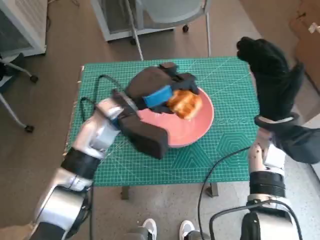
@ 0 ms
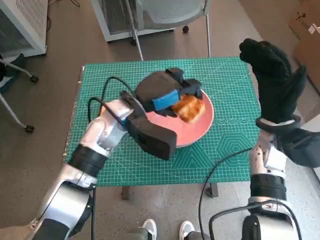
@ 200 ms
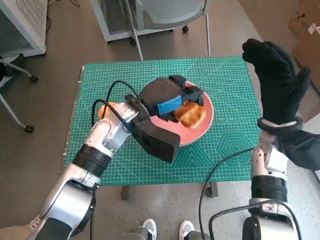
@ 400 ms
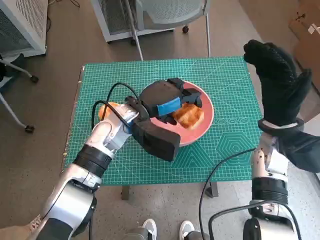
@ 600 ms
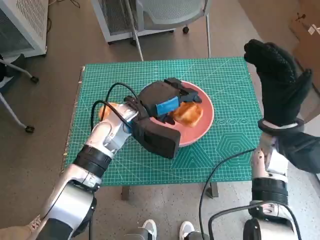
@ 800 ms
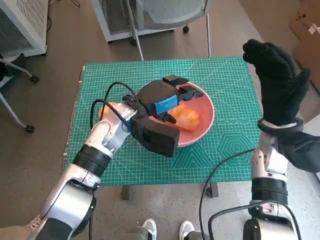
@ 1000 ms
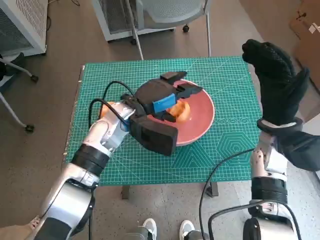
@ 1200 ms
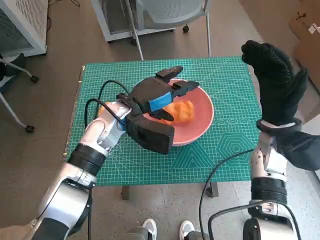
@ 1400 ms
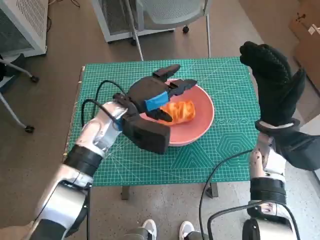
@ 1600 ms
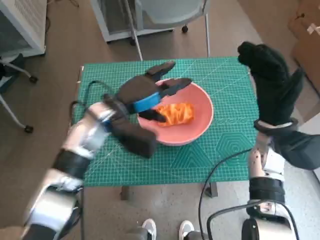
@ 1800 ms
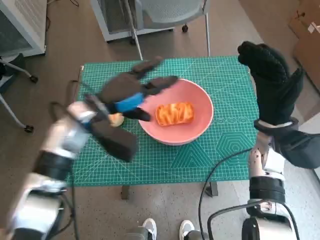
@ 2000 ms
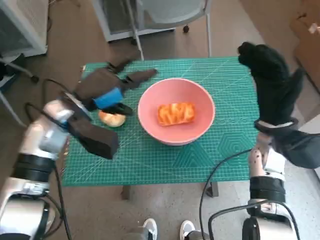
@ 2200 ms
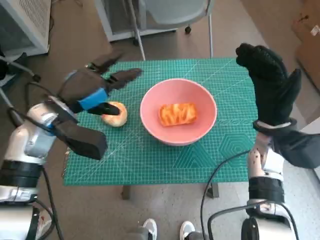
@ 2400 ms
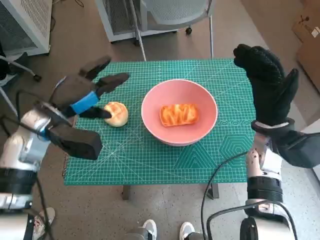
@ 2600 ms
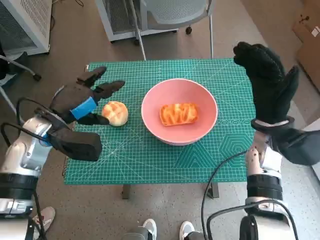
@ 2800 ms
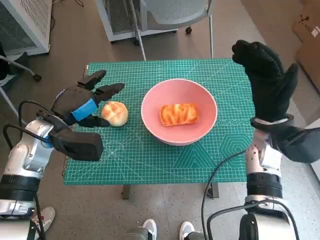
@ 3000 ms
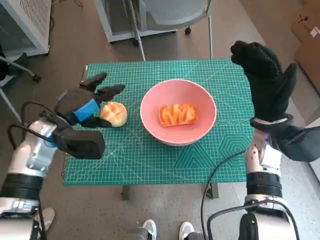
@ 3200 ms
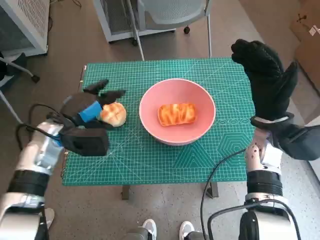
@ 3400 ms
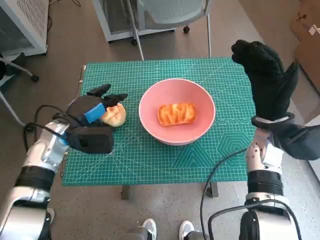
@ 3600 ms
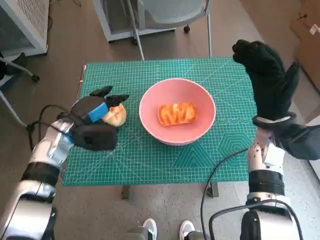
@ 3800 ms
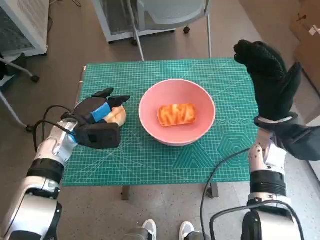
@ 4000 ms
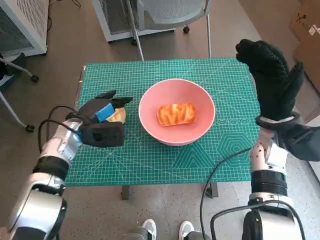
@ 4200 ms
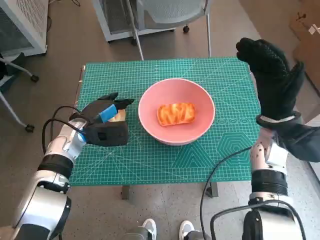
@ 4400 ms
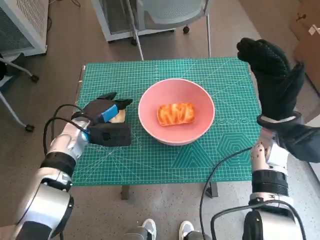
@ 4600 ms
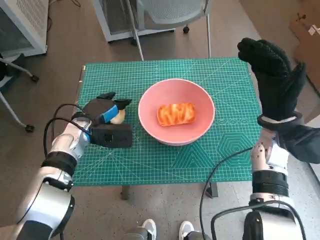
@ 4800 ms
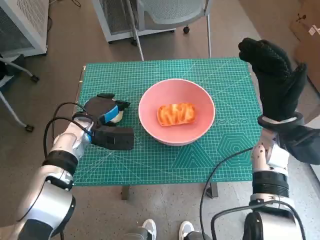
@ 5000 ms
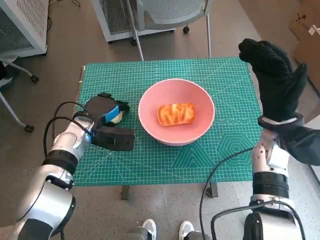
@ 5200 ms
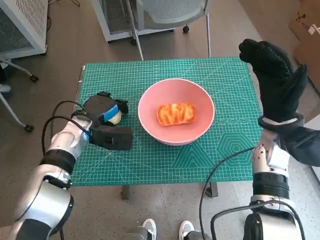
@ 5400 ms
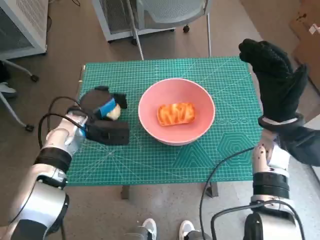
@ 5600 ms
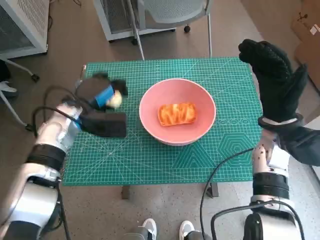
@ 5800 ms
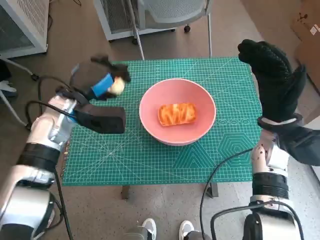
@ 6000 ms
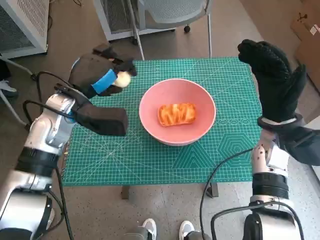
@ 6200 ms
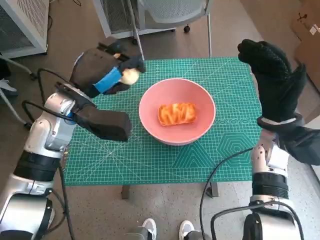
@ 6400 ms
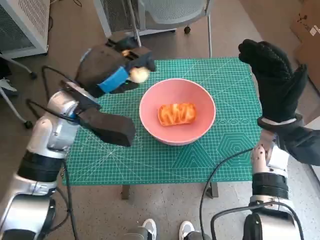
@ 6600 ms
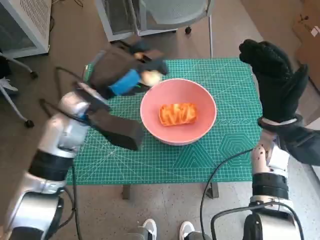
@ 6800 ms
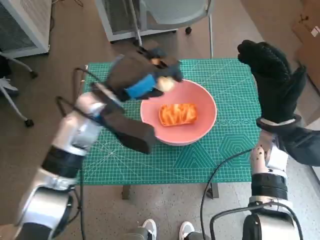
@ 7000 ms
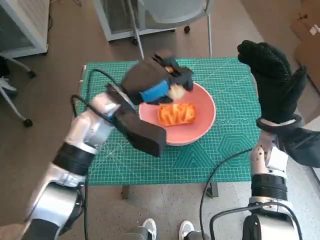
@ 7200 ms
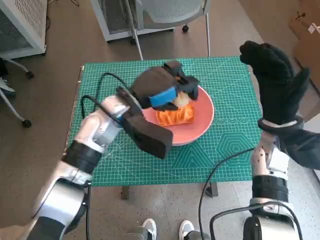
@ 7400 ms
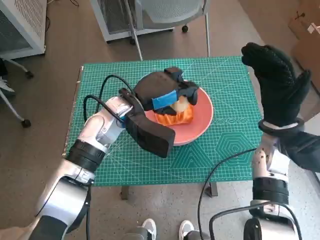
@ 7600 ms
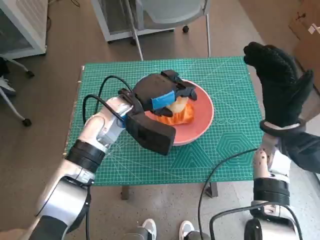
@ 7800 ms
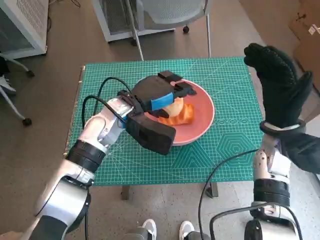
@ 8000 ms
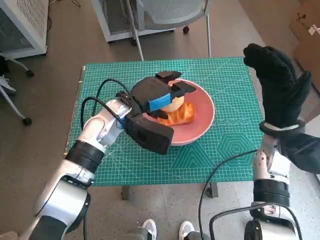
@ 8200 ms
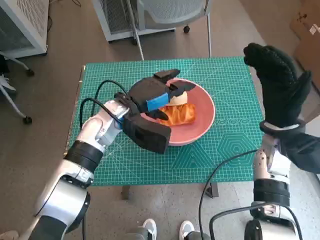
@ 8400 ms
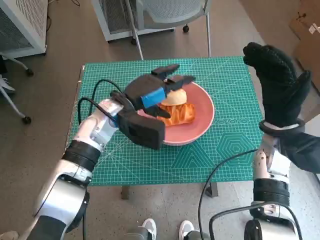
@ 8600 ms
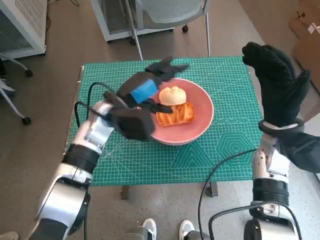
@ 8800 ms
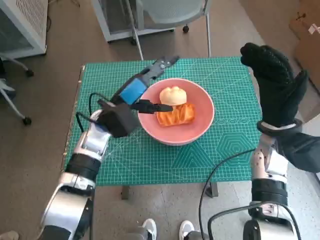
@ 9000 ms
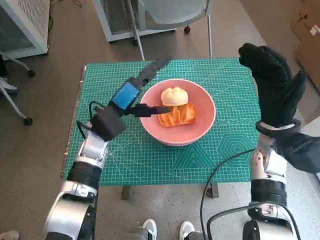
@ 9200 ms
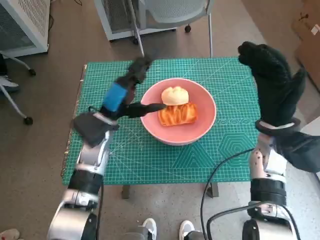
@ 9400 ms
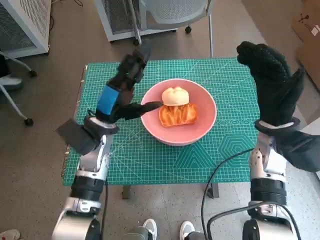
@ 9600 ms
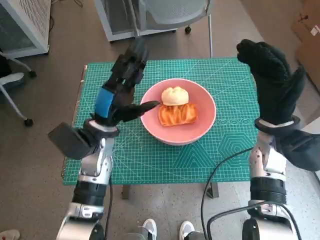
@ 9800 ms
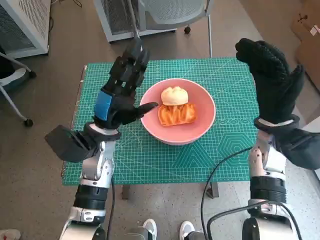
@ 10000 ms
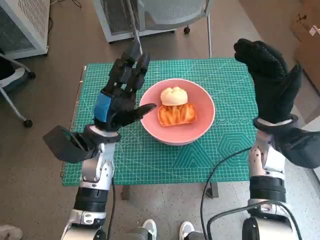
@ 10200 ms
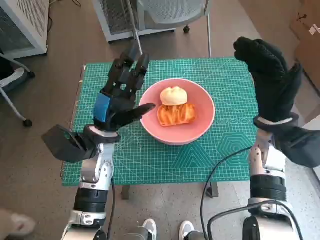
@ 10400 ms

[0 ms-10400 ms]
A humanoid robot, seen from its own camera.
Step, 1600 ms to 5400 ms: Grasp the round bread with left hand.
Step, 5600 ms to 8400 ms: Place the round bread in pink bowl with left hand.
0 ms to 1400 ms: The hands move only a little.
1400 ms to 3000 ms: The left hand moves to the left, roughly 15 cm.
3000 ms to 4400 ms: The left hand moves downward, roughly 5 cm.
4400 ms to 6000 ms: The left hand heads upward, covering about 5 cm.
6000 ms to 7400 ms: The left hand goes roughly 10 cm to the right.
7400 ms to 9000 ms: The left hand ends up approximately 5 cm from where it was.
9000 ms to 10400 ms: The left hand goes approximately 5 cm backward.

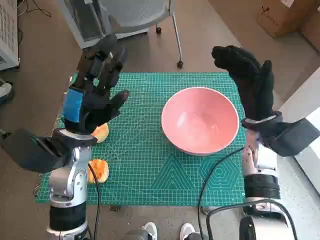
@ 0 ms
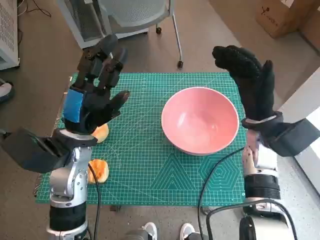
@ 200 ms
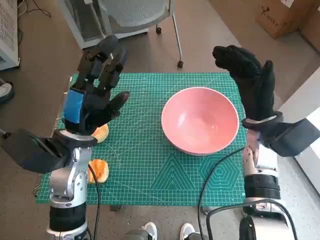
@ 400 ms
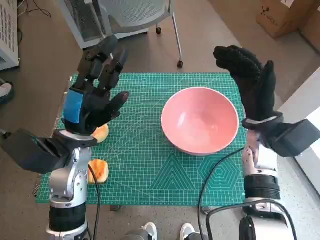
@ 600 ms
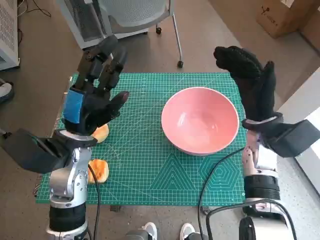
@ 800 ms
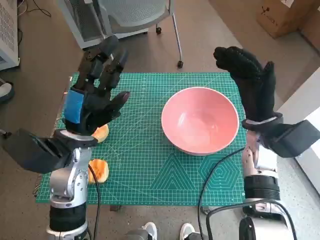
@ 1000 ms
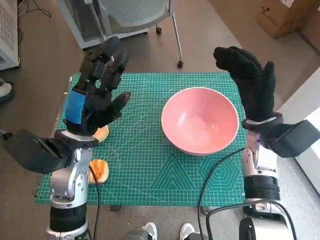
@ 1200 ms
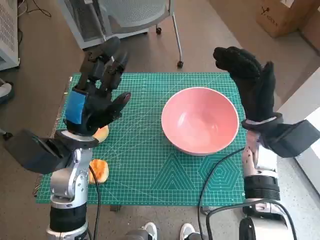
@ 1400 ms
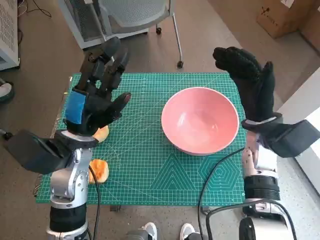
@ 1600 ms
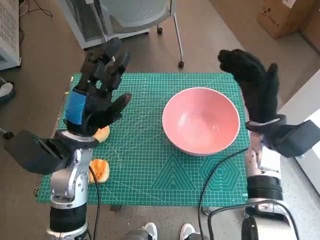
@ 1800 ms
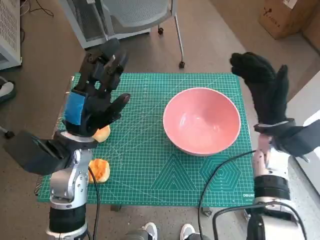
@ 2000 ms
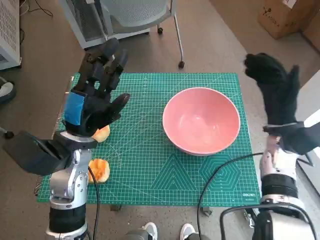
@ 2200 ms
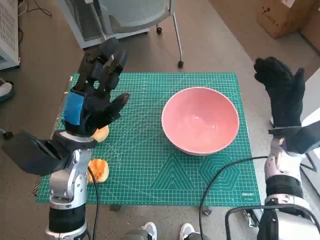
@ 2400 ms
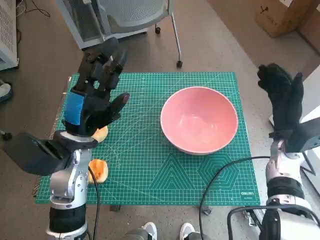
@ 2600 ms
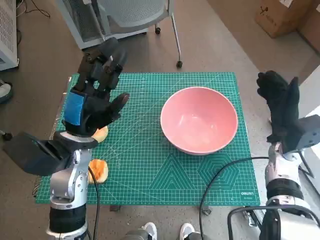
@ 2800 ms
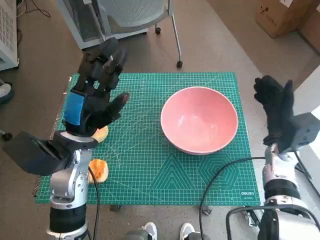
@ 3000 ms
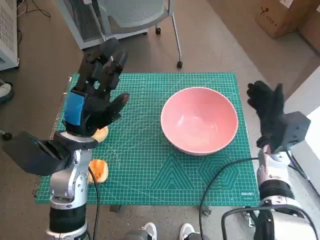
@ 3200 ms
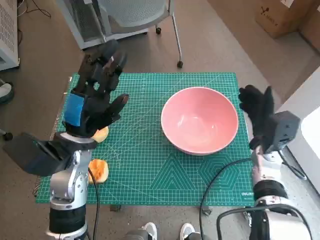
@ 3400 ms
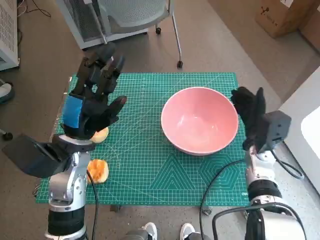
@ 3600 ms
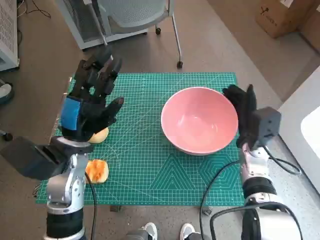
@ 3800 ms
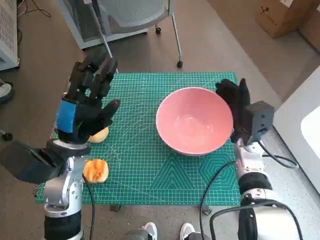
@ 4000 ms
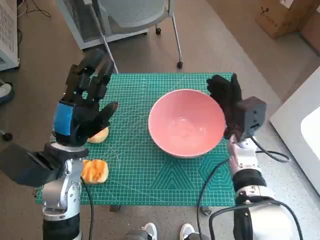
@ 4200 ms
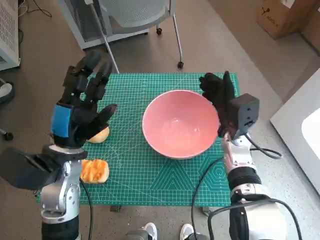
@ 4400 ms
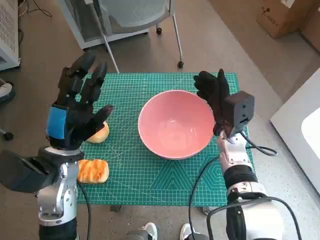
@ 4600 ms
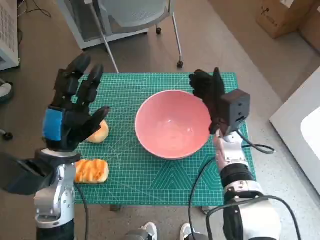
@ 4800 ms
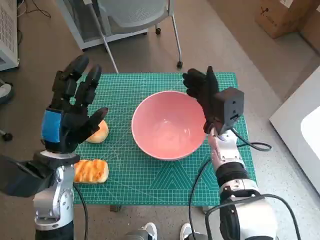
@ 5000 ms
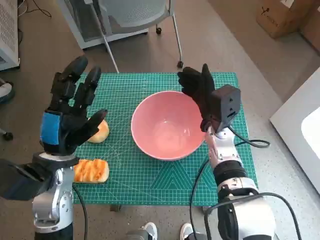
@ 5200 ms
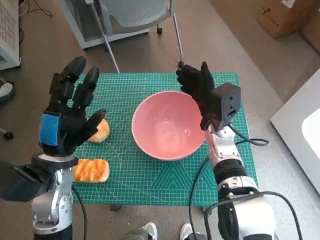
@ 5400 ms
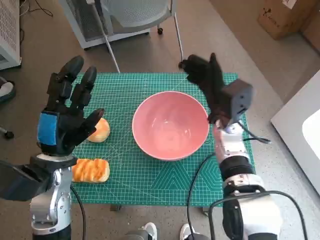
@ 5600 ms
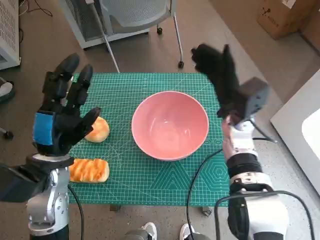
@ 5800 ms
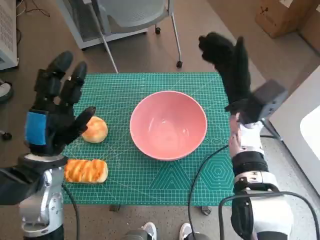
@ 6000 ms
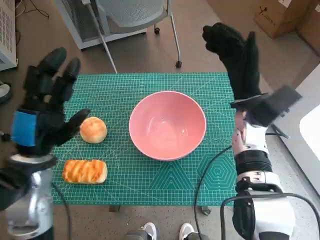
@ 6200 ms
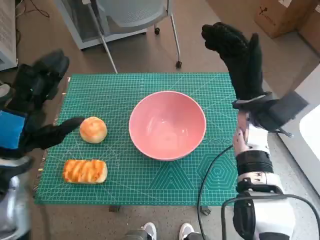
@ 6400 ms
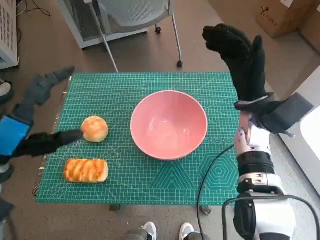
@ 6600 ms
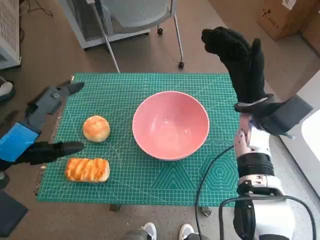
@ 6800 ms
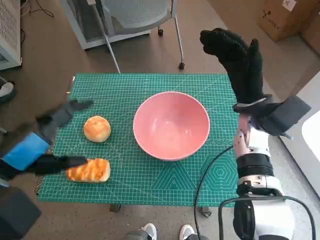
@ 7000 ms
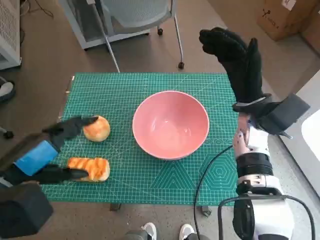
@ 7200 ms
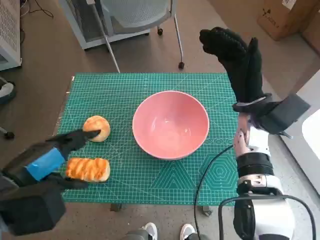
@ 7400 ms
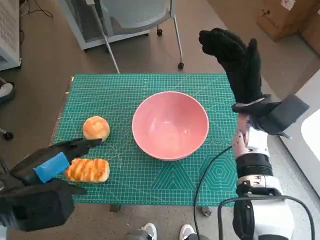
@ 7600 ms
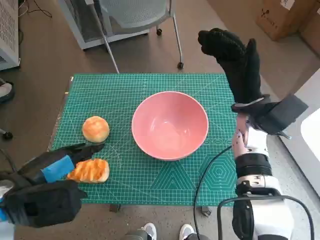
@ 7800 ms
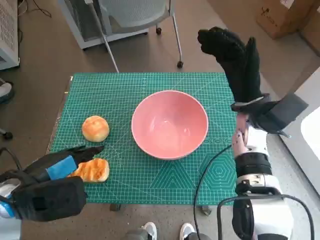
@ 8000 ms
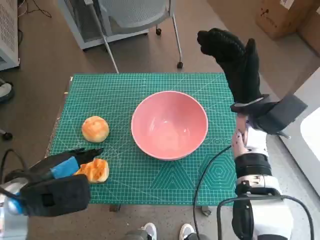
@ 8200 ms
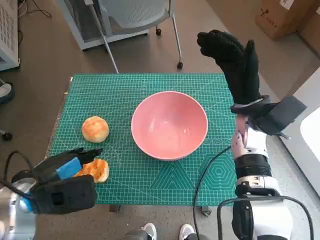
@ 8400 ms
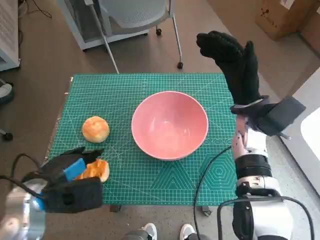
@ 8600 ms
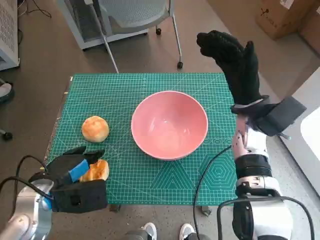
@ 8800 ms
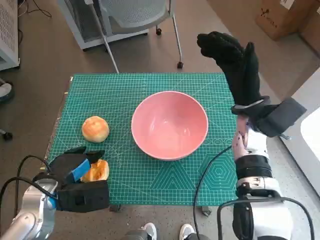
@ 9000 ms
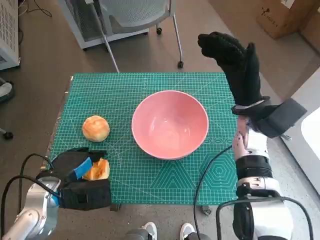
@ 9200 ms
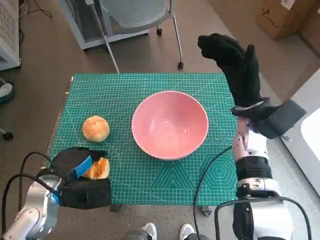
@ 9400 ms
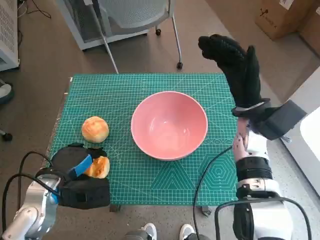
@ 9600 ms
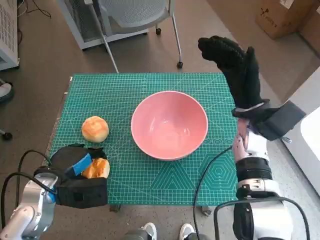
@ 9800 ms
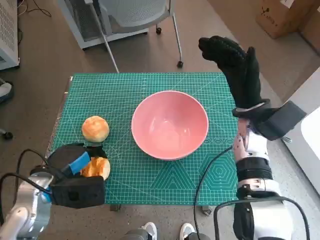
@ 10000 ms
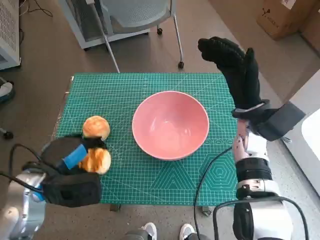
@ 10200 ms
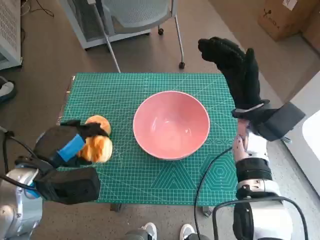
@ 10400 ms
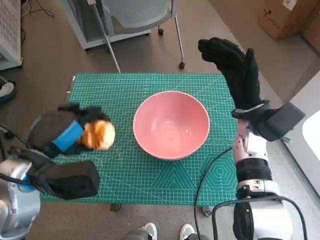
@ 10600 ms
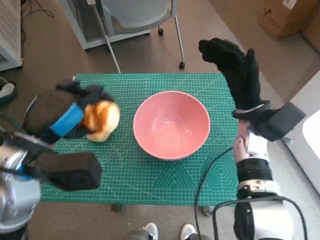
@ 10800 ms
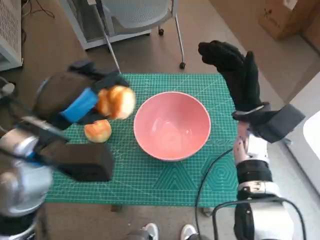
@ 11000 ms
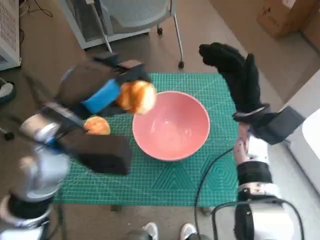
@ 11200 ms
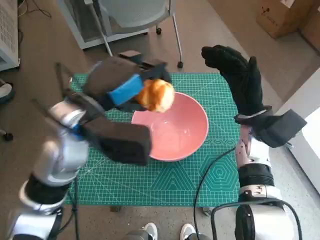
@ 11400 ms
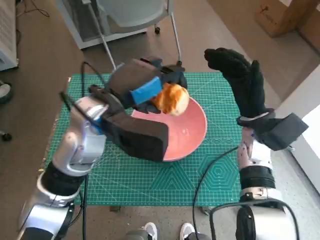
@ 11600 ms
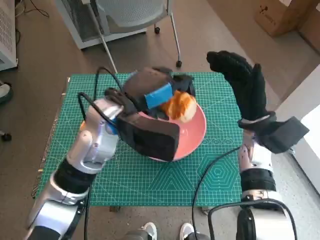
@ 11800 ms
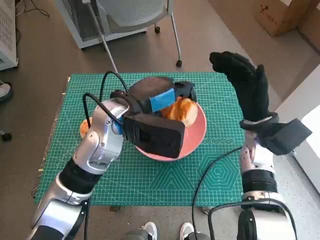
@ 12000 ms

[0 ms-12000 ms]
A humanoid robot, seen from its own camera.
Step, 0 ms to 5000 ms: Move the pink bowl to the center of table with right hand.
Step, 5200 ms to 9200 ms: Grasp the long bread with left hand.
1600 ms to 3000 ms: The right hand shifts about 10 cm downward and to the right.
3000 ms to 4400 ms: The right hand moves to the left, about 10 cm.
4400 ms to 6000 ms: The right hand moves upward, some 5 cm.
6000 ms to 7600 ms: The left hand travels backward by about 5 cm.
7600 ms to 9000 ms: The left hand goes about 10 cm downward.
9000 ms to 10400 ms: The left hand travels upward by some 5 cm.
10400 ms to 12000 ms: The left hand travels to the right, forward and upward by approximately 20 cm.
